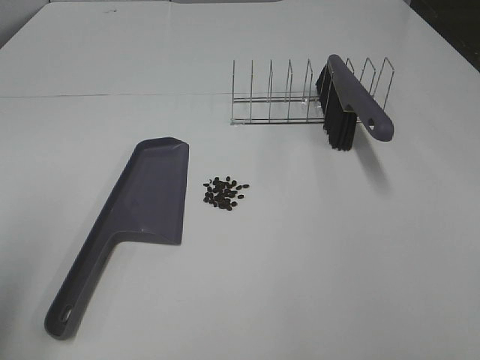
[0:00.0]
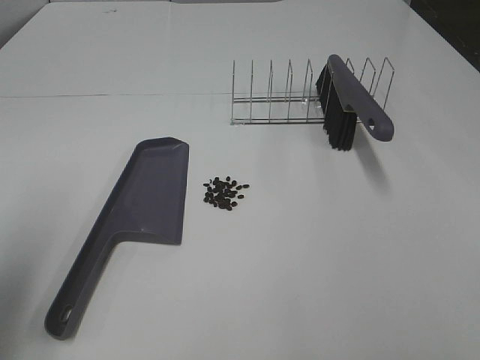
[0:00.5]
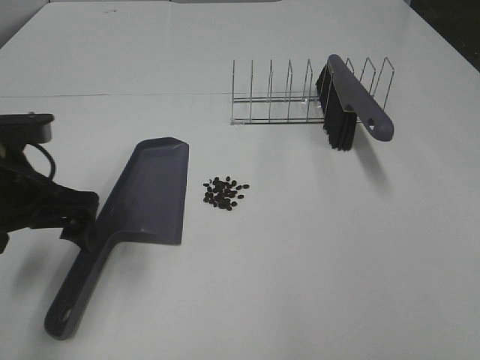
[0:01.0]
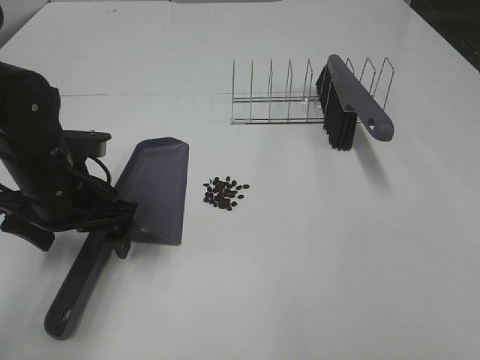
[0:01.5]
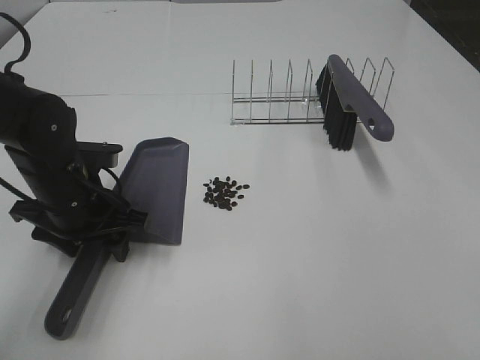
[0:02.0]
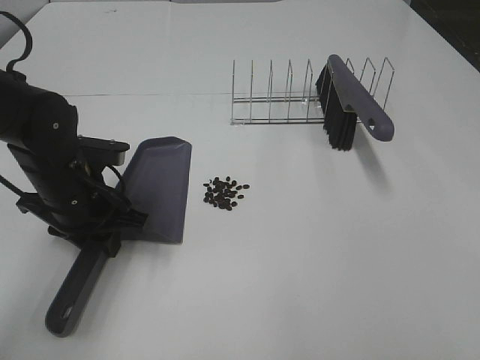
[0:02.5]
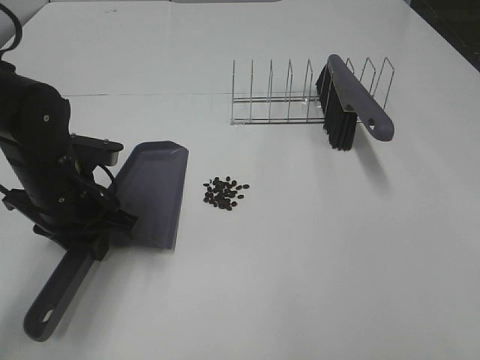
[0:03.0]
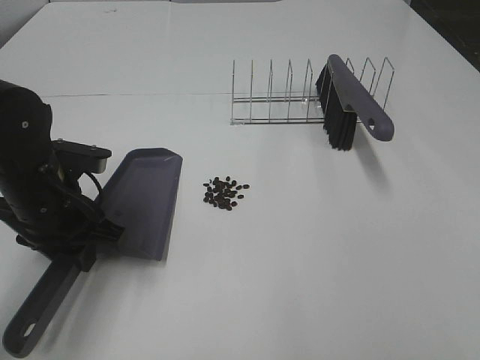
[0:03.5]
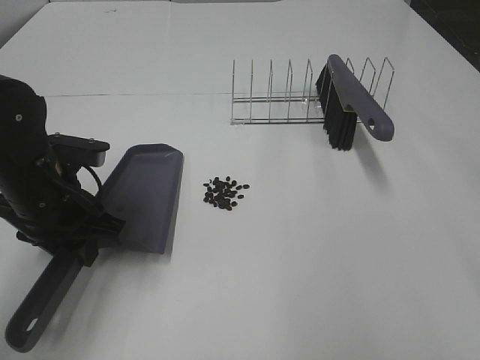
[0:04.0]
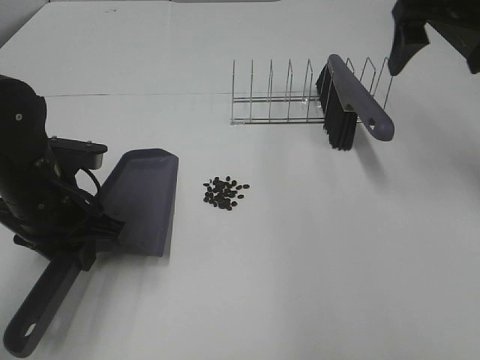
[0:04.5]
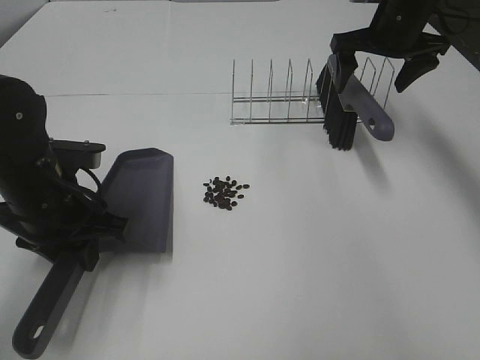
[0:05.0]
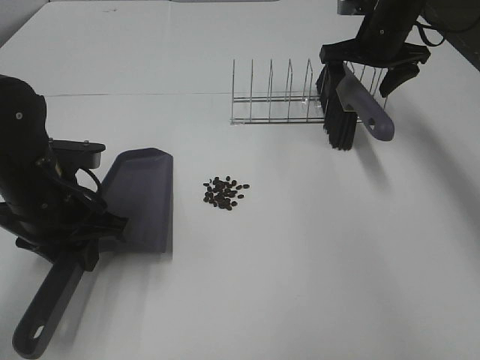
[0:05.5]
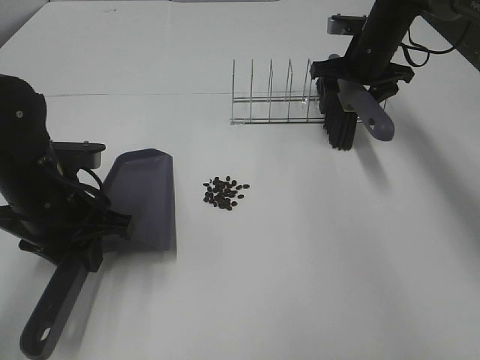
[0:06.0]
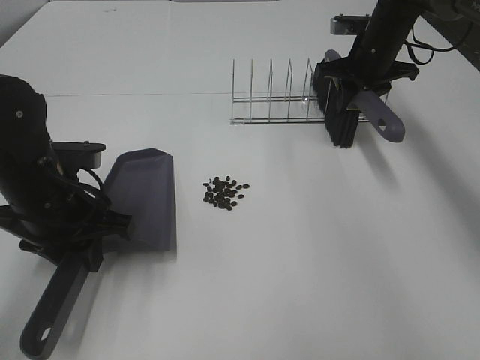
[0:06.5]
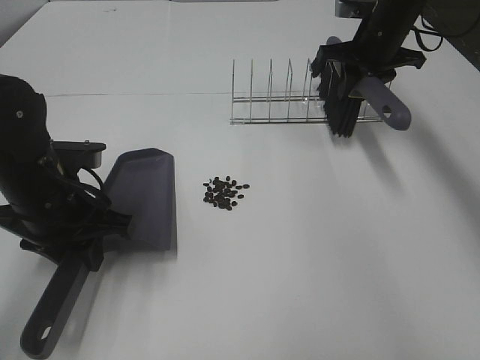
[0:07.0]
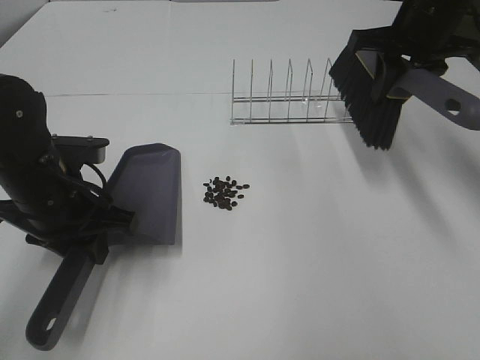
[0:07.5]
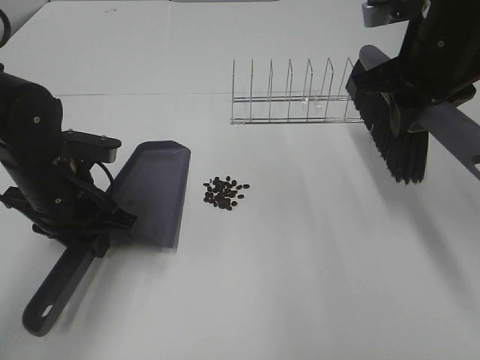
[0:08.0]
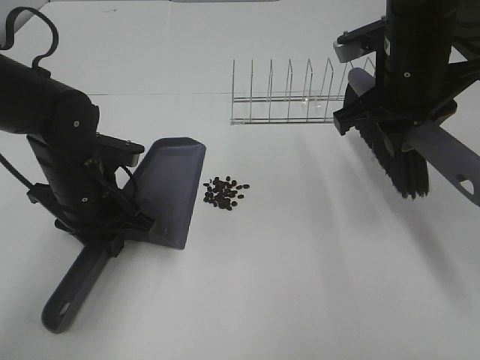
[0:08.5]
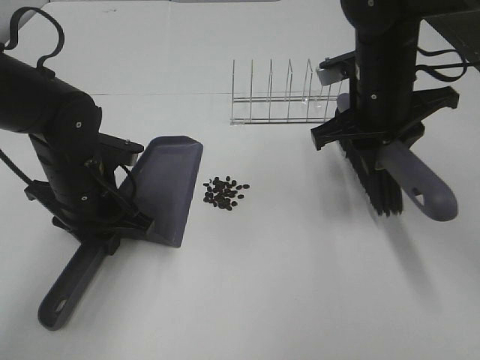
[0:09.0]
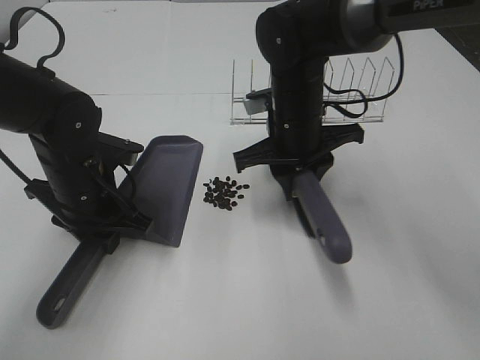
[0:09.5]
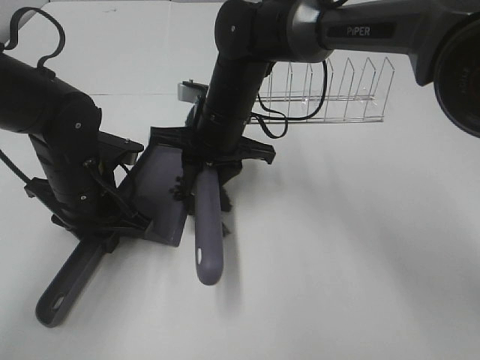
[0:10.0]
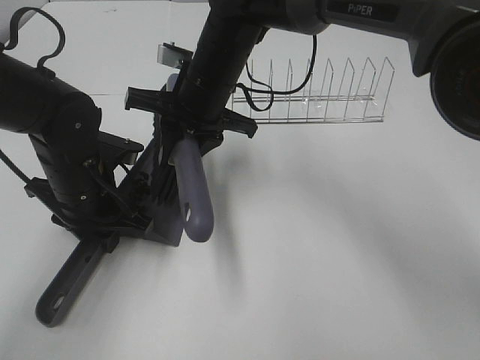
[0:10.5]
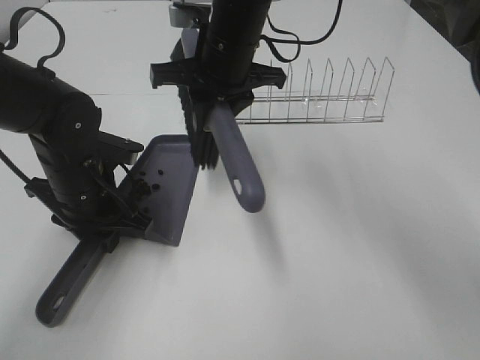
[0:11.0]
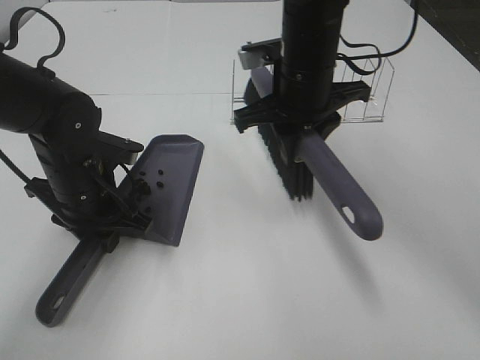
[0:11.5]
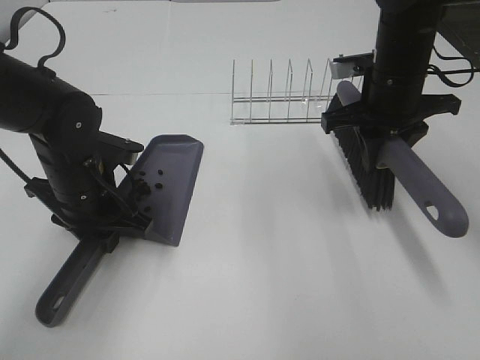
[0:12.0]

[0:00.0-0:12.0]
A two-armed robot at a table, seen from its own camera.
Task of the whole recording: Sweep Coffee Bean.
Step, 0:00.0 to 0:02.0: Left hand: grab the dustpan.
Step, 0:03.5 to 0:06.0: Right hand:grab the broom.
Step, 0:06.5 to 0:10.5: Right hand:sweep the coffee beans into the dustpan.
0:00.0 to 0:02.0: The left gripper is displaced downward, forward and to the right by roughly 25 cm, and closes up.
0:02.0 to 0:04.0: The right gripper shifts some 15 cm forward and upward, and opens up, while the left gripper closes its fingers.
0:04.0 to 0:06.0: The right gripper shifts approximately 40 cm forward and downward, and closes its fingers.
0:06.0 to 0:08.0: The right gripper travels backward and upward by about 20 cm, and closes.
0:08.0 to 0:10.0: The right gripper heads to the left and downward, covering approximately 25 cm.
0:10.0 to 0:12.0: The right gripper heads to the right, covering approximately 20 cm.

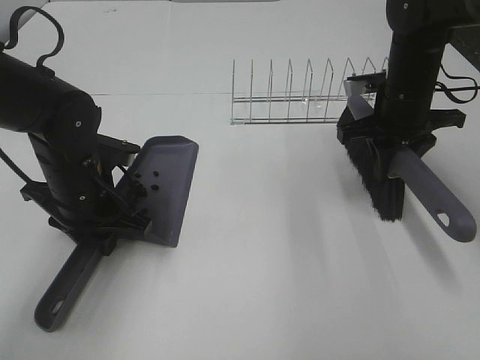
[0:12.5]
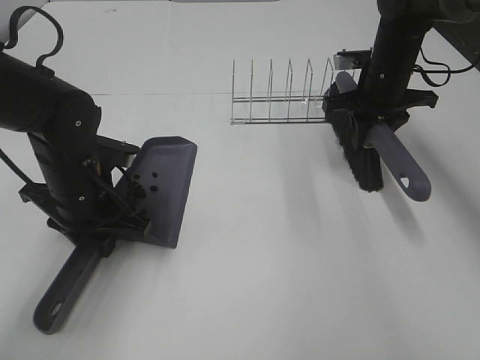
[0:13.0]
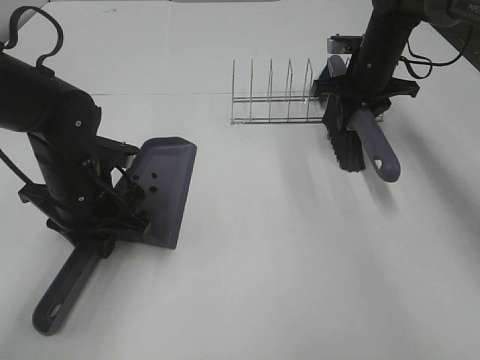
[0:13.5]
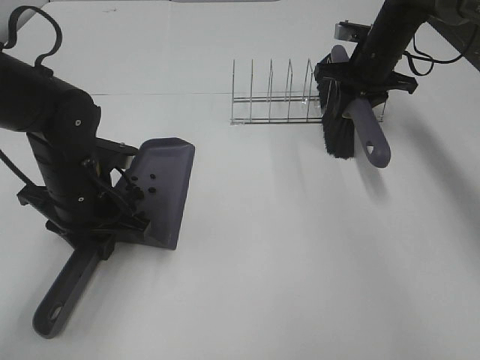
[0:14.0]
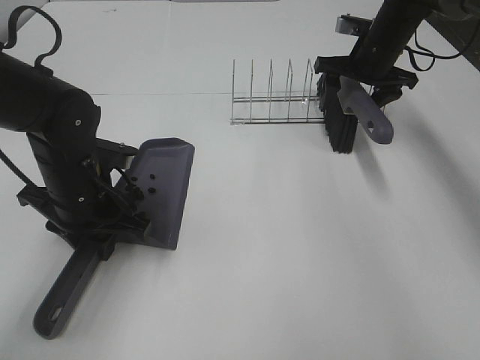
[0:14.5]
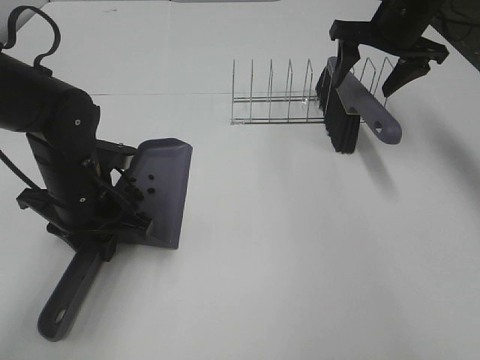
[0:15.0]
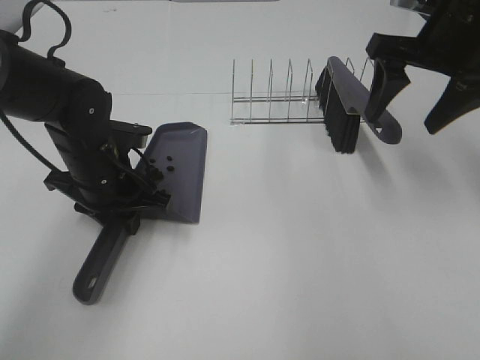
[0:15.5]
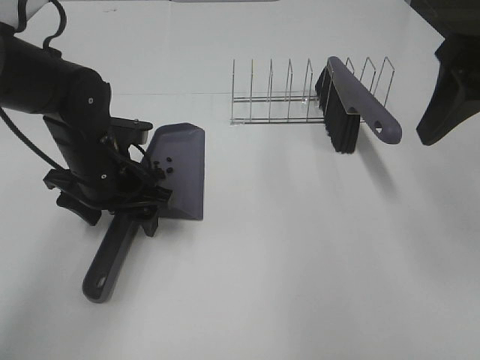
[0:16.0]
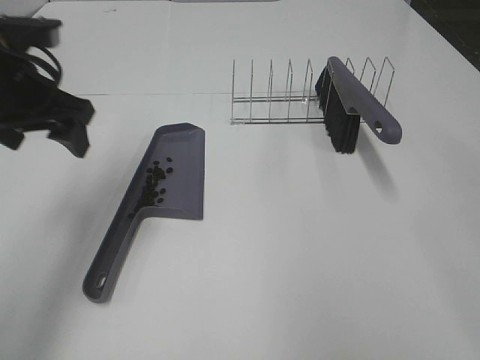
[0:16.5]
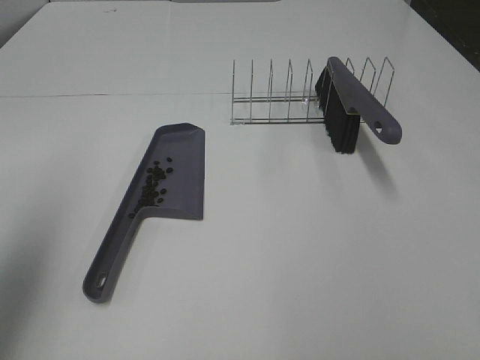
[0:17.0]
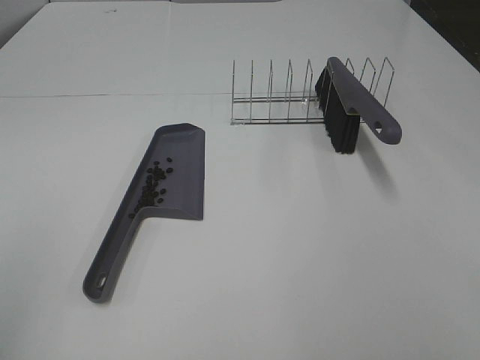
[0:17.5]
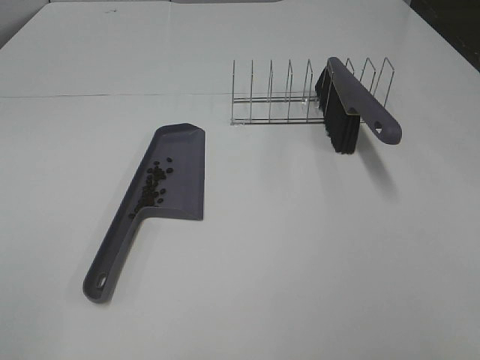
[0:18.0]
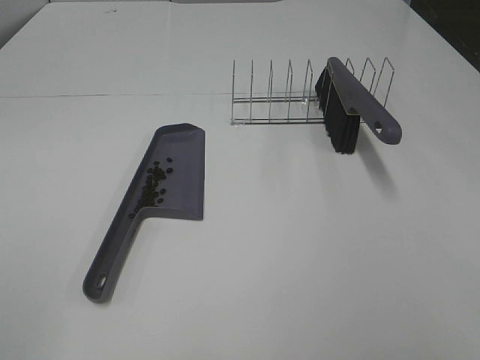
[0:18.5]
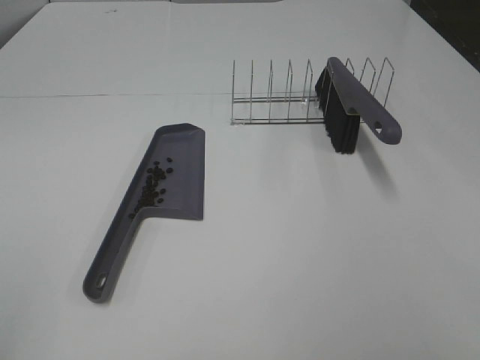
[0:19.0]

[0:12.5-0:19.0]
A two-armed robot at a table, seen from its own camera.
Task of the whole recording: Sweep Coffee Bean.
0:12.5 to 0:14.5: The right gripper heads forward, covering roughly 10 cm, and opens.
0:14.5 to 0:17.0: The right gripper is displaced backward and upward by approximately 50 cm; the left gripper travels upward, to the left and backward by approximately 30 cm, and opens.
0:17.0 to 0:19.0: The left gripper shifts roughly 20 cm backward.
